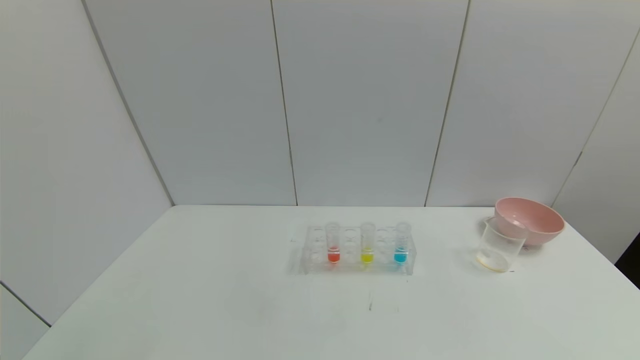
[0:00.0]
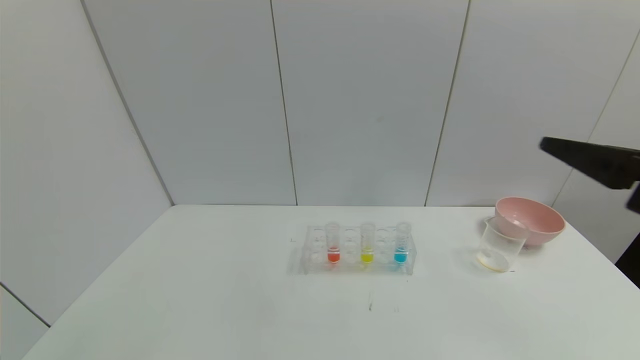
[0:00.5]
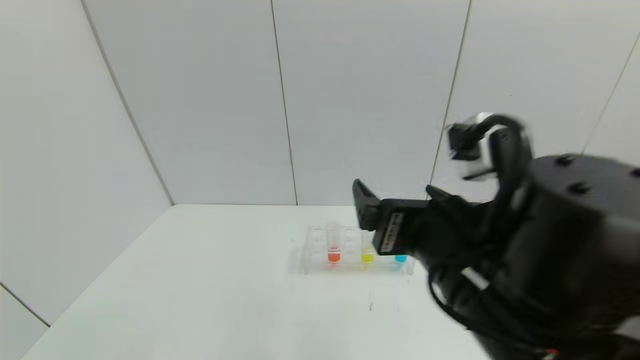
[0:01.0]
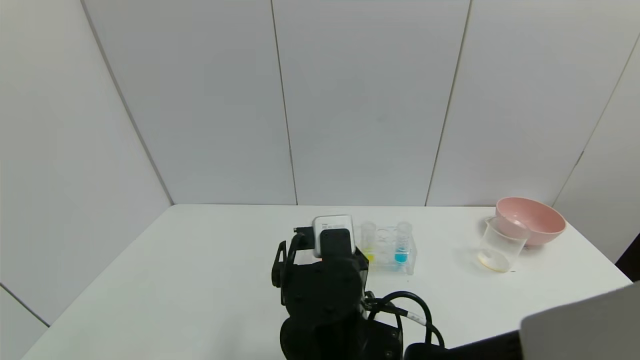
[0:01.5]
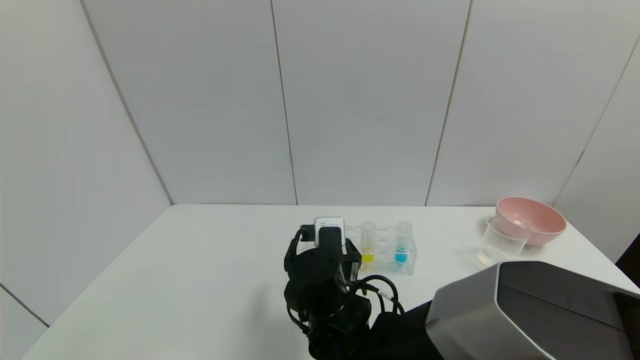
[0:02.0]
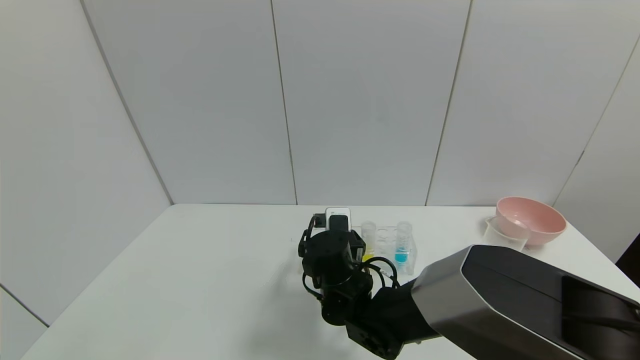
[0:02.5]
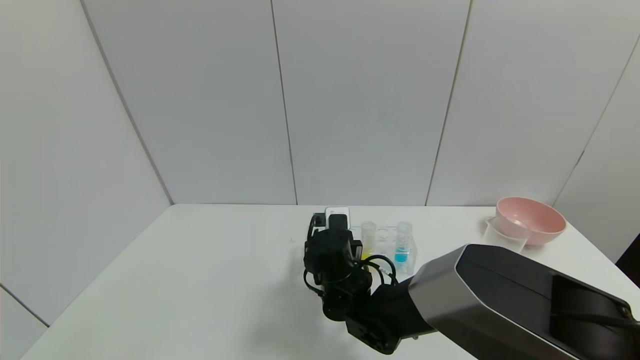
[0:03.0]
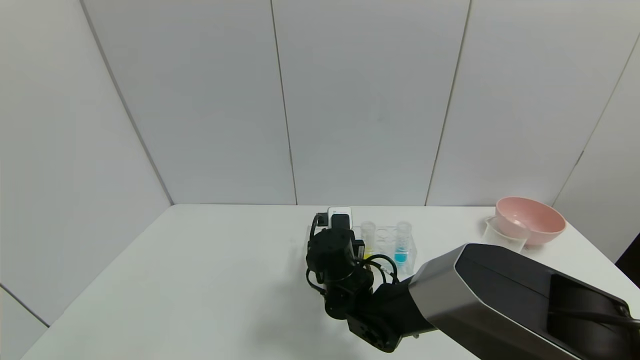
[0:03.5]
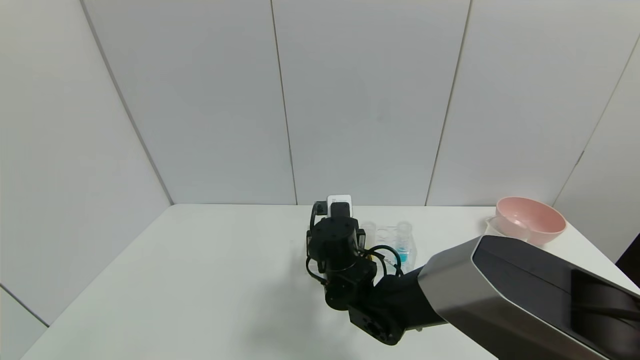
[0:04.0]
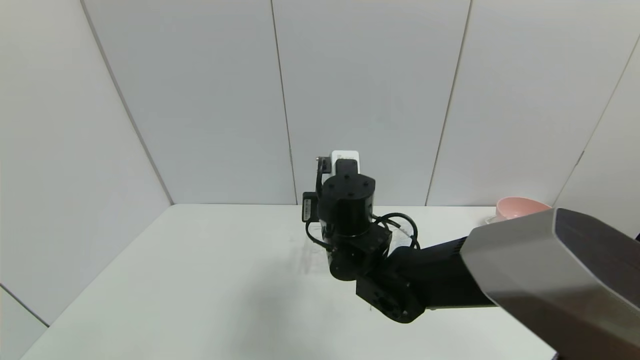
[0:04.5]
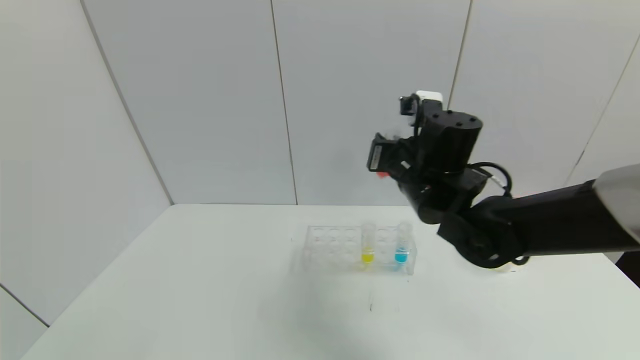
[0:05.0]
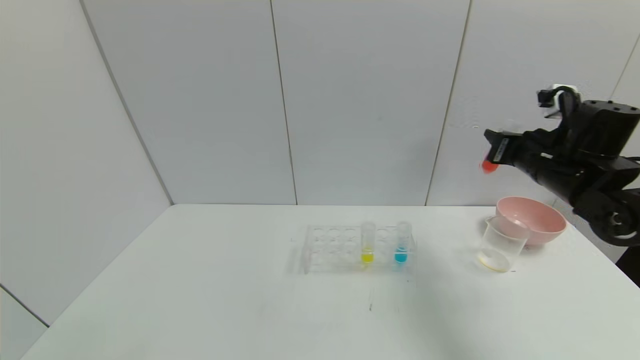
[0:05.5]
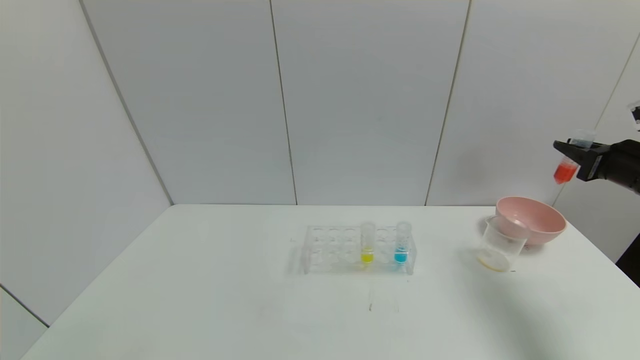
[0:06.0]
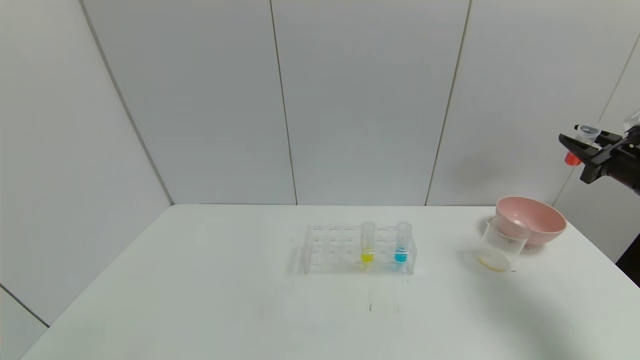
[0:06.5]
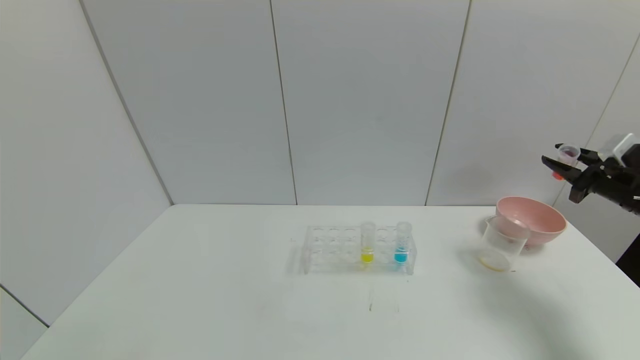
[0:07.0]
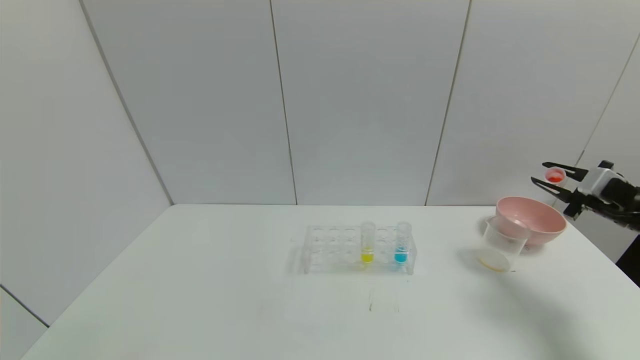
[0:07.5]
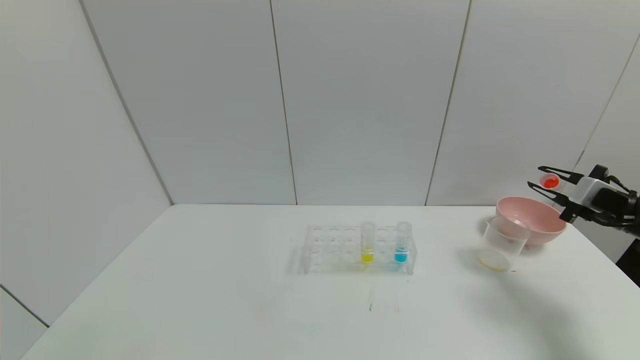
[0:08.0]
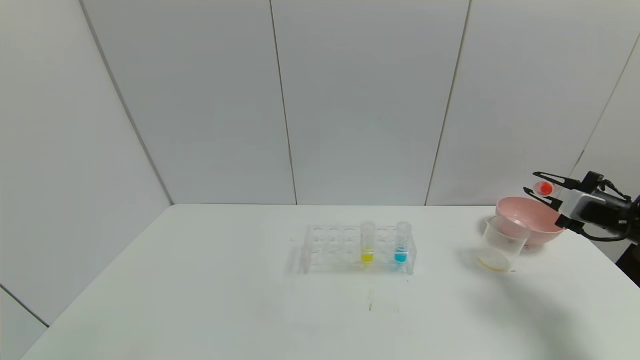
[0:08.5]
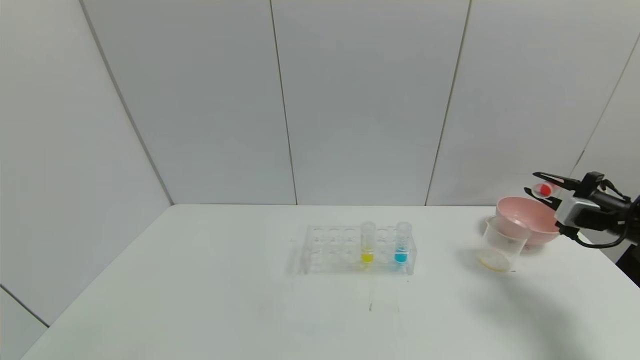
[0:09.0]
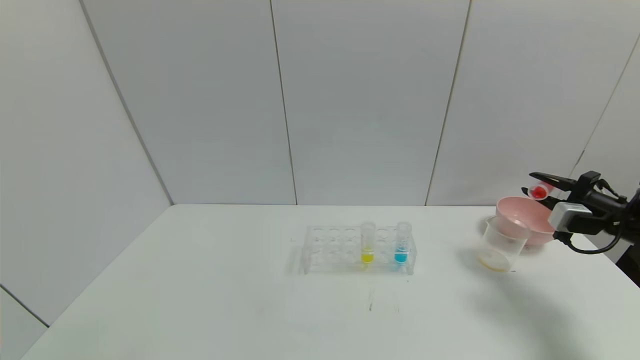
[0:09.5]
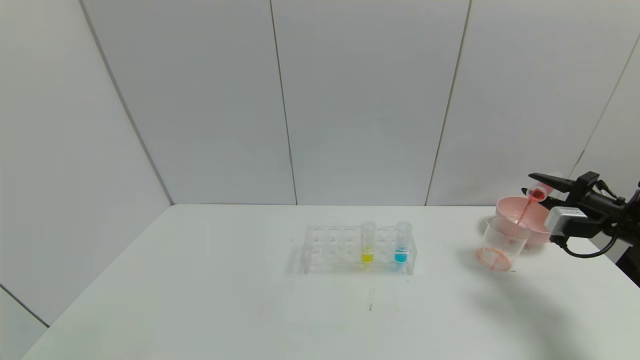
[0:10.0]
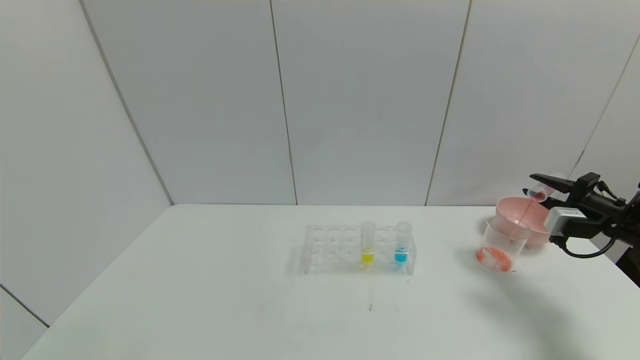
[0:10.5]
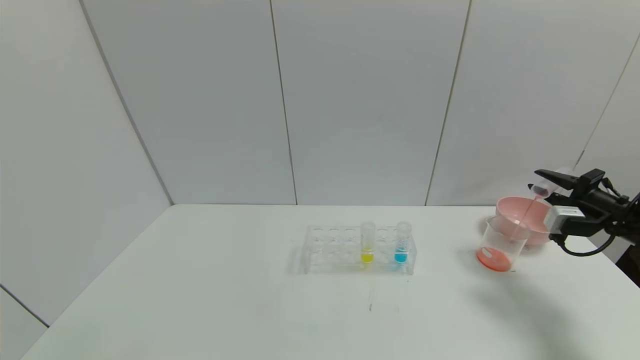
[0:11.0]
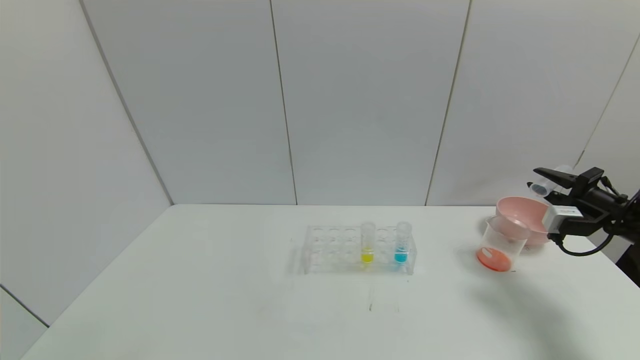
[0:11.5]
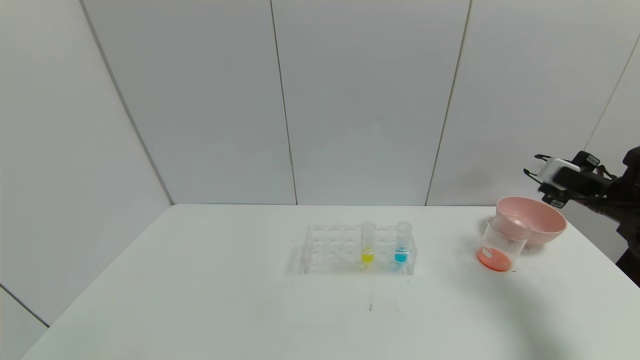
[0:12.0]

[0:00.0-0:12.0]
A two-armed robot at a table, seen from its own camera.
Task of the whole recording: pick up the test tube with yellow pigment and the test tube with red pigment by grippers and pour them into the beaker.
Step, 0:00.0 to 0:03.0: Grasp the red reagent with the right gripper.
Step, 0:03.5 to 0:11.0: Pour the red reagent into the graduated cylinder with the right gripper.
0:00.0 to 0:02.0: The right gripper travels to the left, forward and downward by roughly 50 cm.
0:02.0 to 0:04.0: The right gripper heads forward, covering approximately 5 cm, and closes up.
0:04.0 to 0:06.0: The right gripper goes roughly 50 cm to the right.
0:06.0 to 0:08.0: The right gripper goes some 5 cm downward.

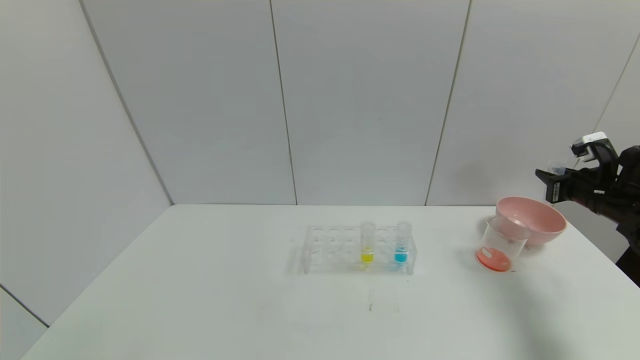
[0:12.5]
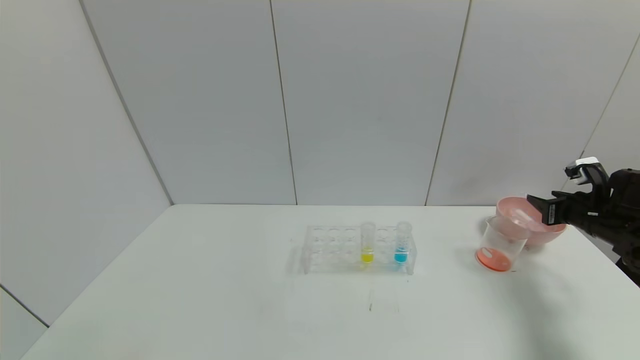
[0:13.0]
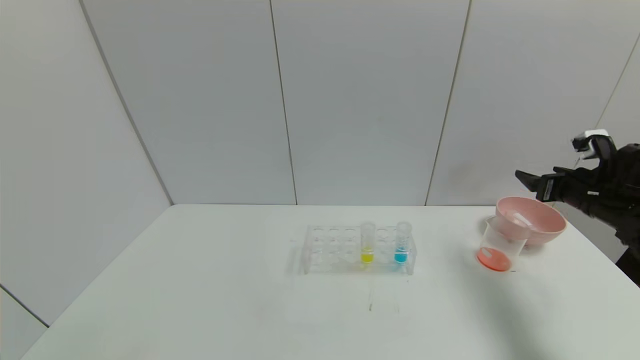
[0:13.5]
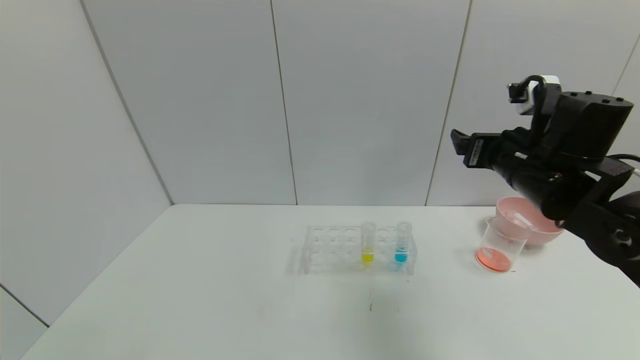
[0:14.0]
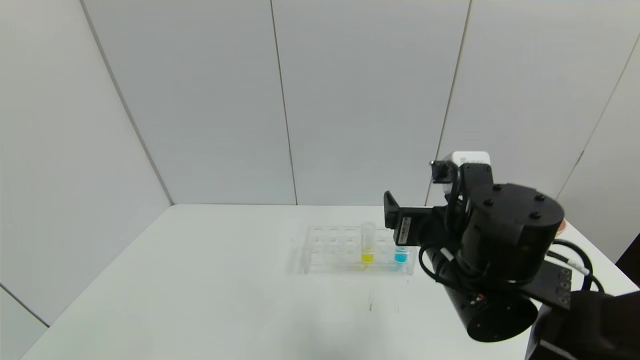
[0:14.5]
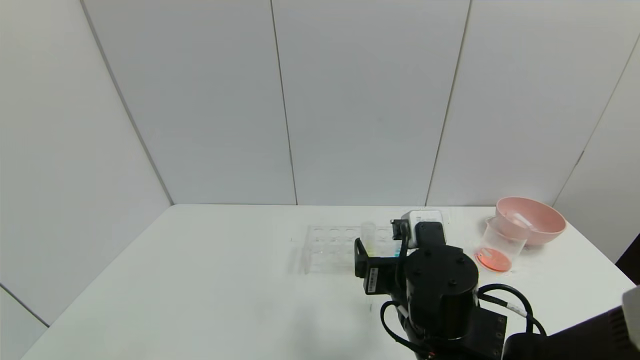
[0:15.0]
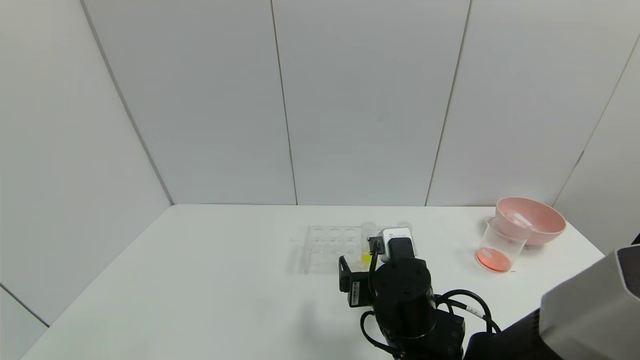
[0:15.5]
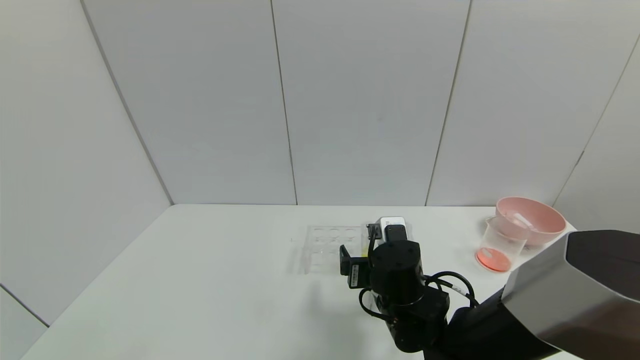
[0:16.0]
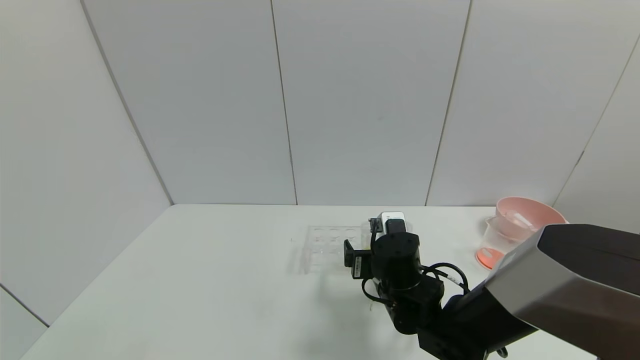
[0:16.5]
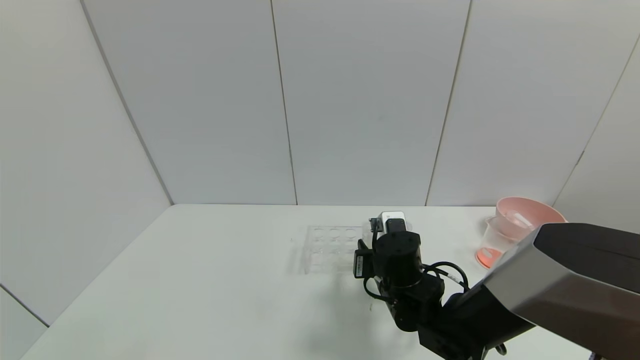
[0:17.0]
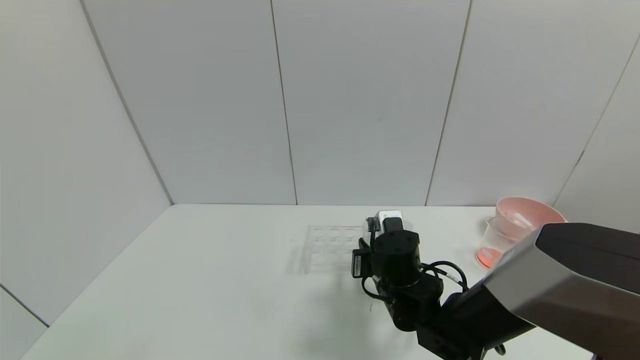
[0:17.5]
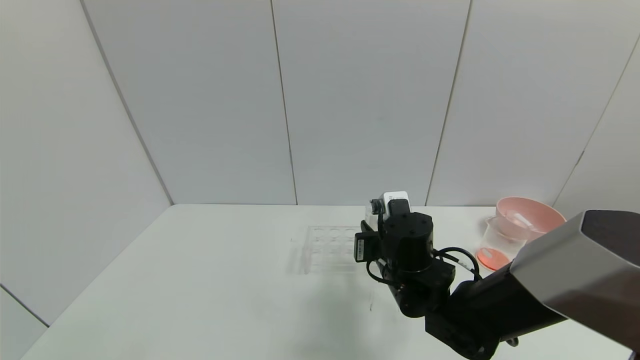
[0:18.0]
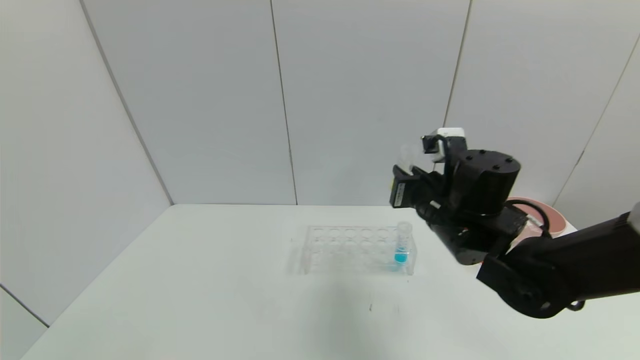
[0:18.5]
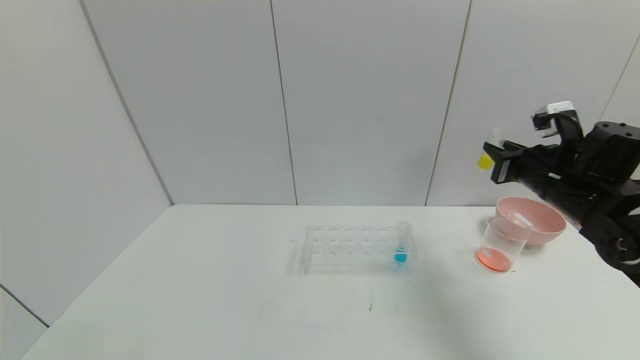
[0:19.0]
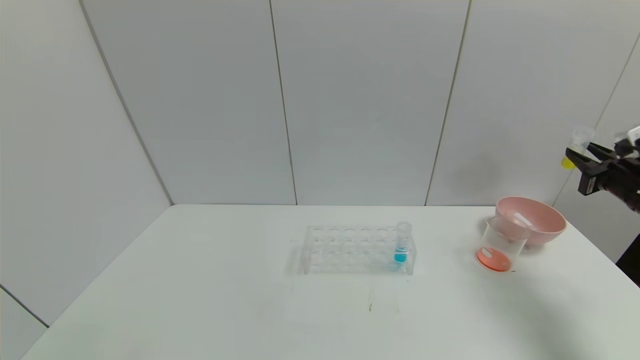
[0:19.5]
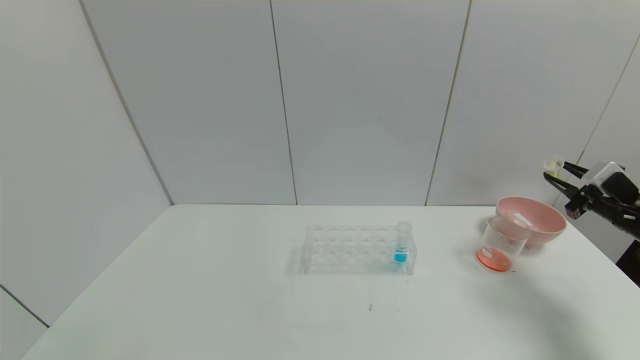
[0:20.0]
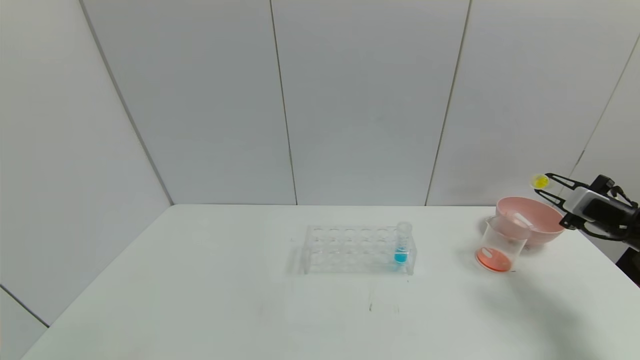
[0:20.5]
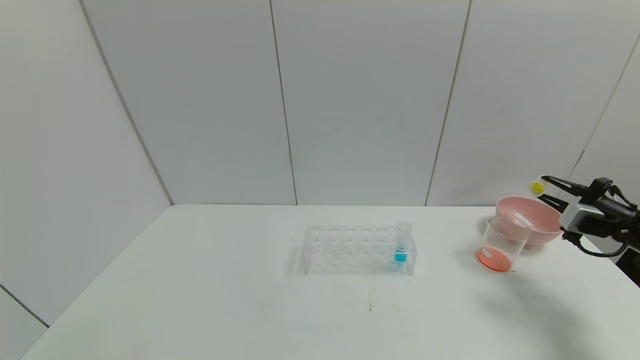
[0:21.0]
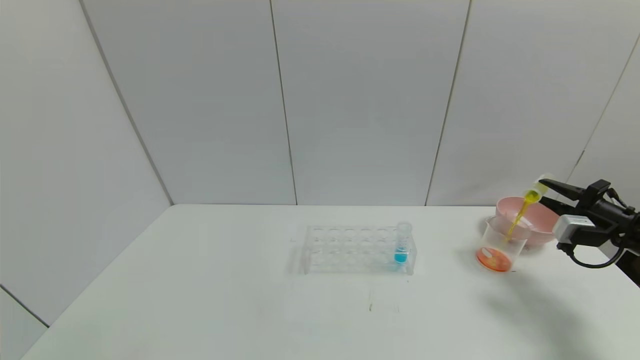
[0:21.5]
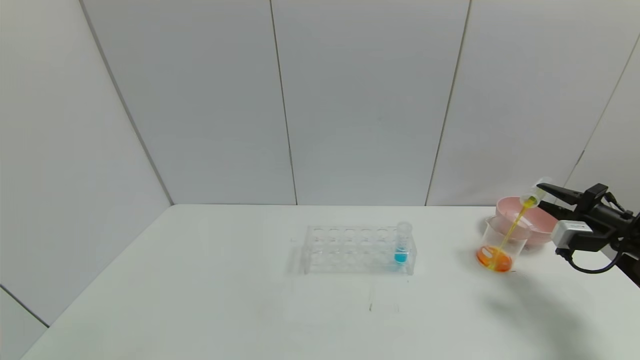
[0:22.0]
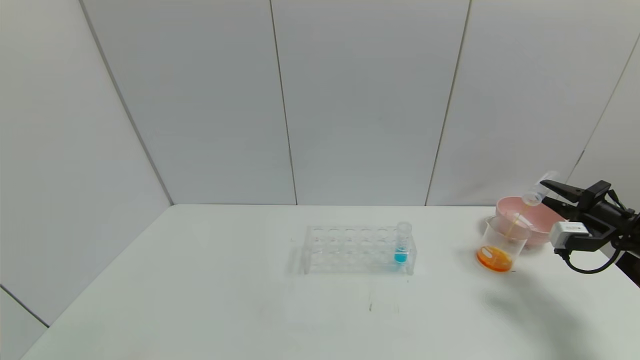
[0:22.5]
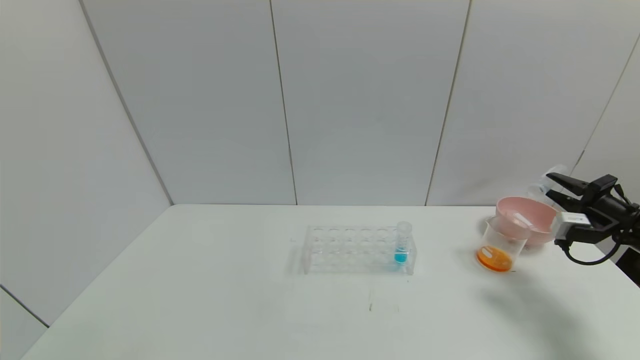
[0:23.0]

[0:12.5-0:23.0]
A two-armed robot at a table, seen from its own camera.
Task of the whole recording: pick up the test tube with yellow pigment and the test tube with red pigment by grippers and pour them into the beaker.
Step, 0:13.5 to 0:17.0: Grasp the yellow reagent with the right gripper.
Step, 0:17.5 to 0:23.0: Pour the yellow reagent into the graduated cylinder with the right gripper.
0:12.5 to 0:14.5: The right gripper shifts roughly 35 cm to the left and backward, and opens.
0:14.5 to 0:16.5: The right gripper moves downward and forward, some 15 cm.
0:16.5 to 0:19.0: The right gripper travels to the right and upward by roughly 30 cm, and closes its fingers.
0:19.0 to 0:21.0: The right gripper shifts some 15 cm to the right and downward.
